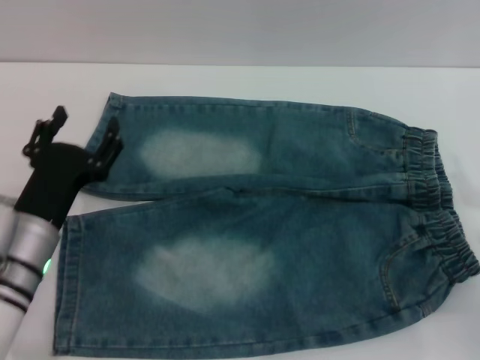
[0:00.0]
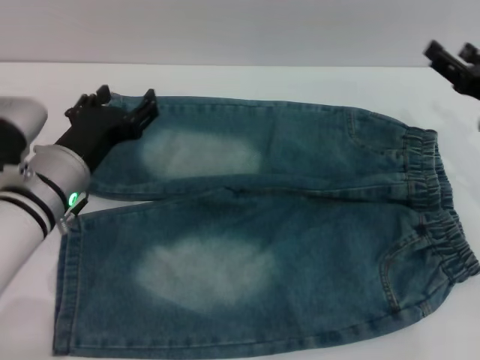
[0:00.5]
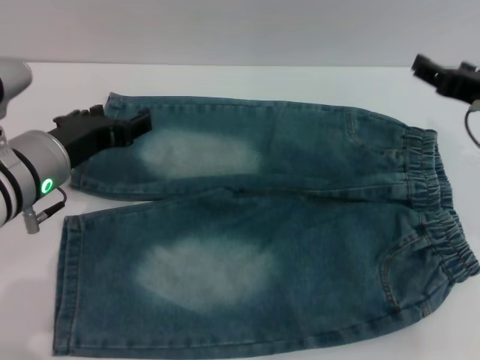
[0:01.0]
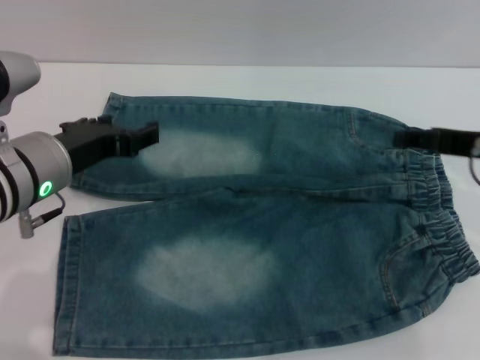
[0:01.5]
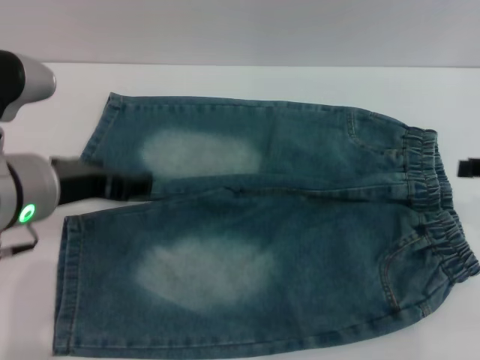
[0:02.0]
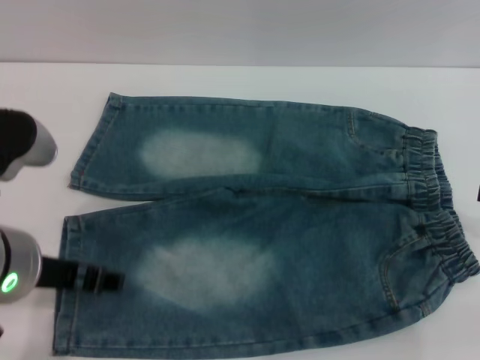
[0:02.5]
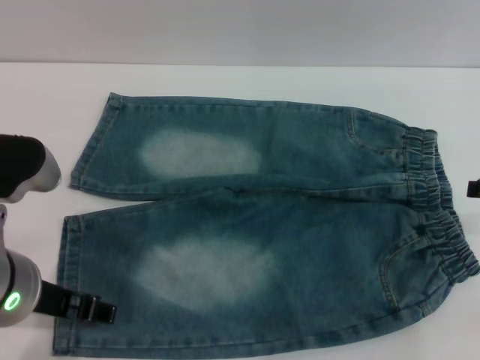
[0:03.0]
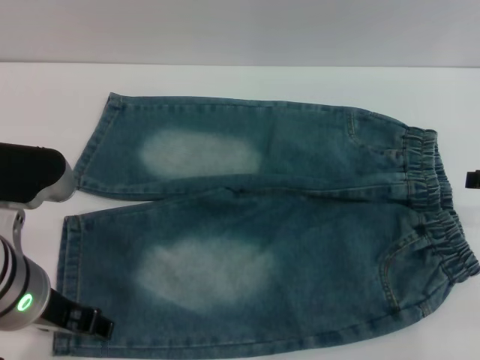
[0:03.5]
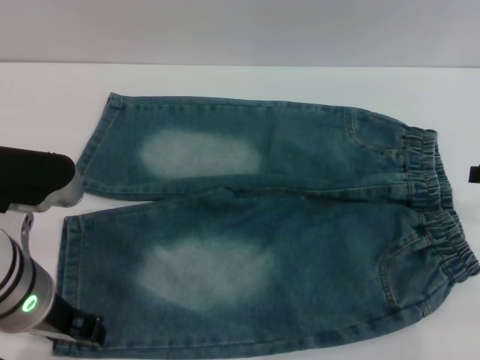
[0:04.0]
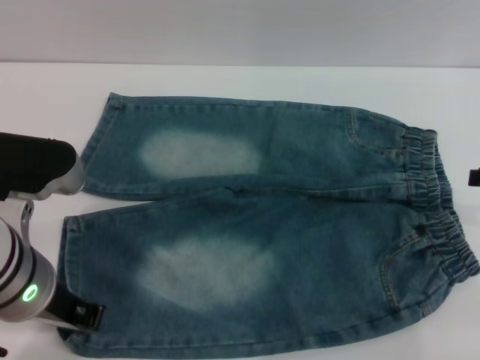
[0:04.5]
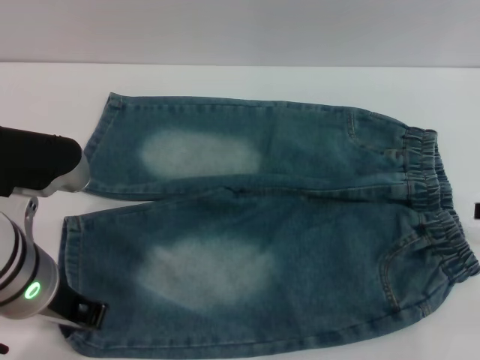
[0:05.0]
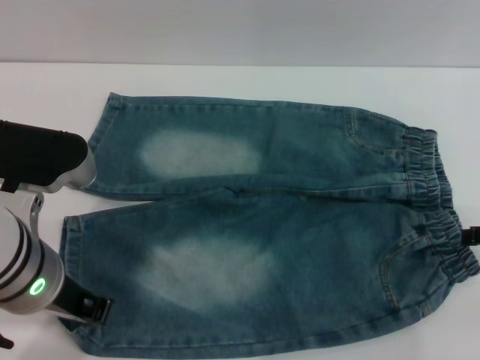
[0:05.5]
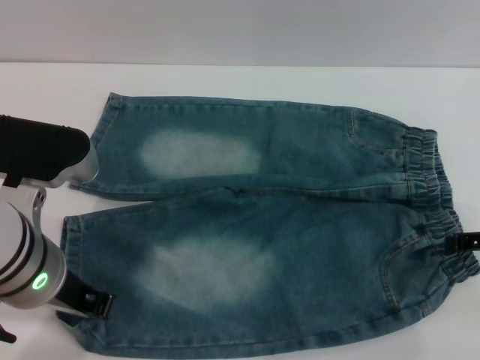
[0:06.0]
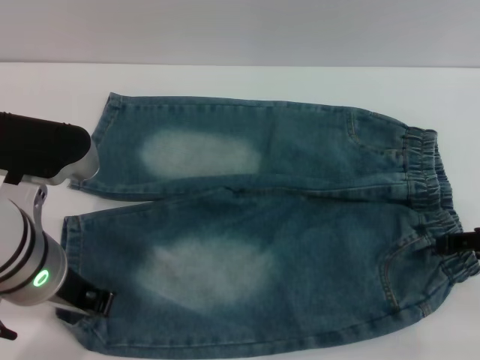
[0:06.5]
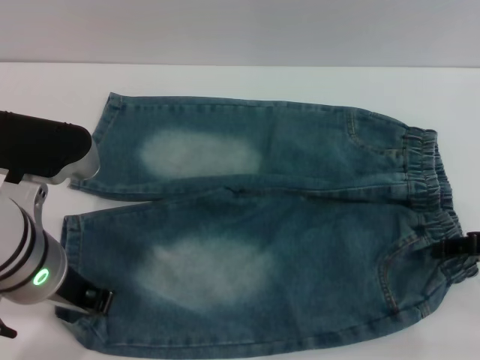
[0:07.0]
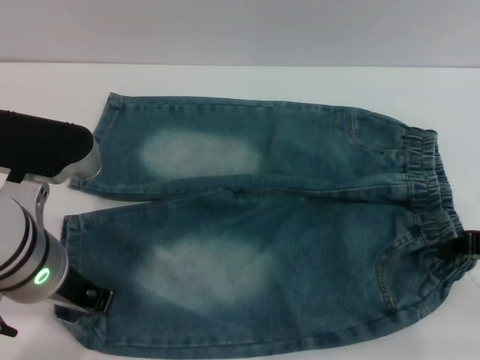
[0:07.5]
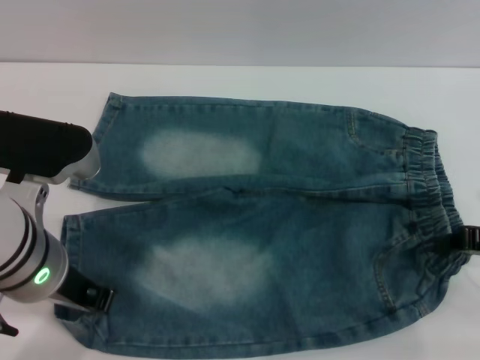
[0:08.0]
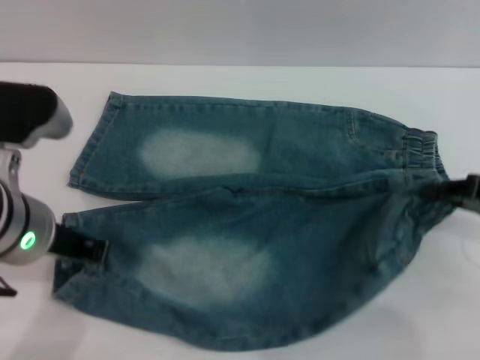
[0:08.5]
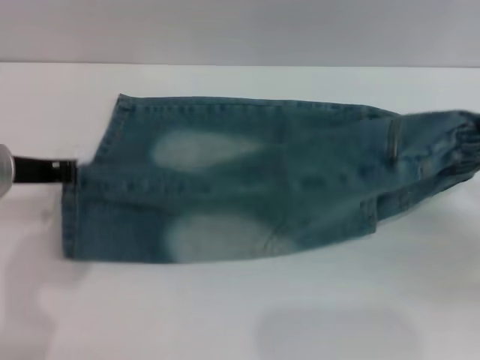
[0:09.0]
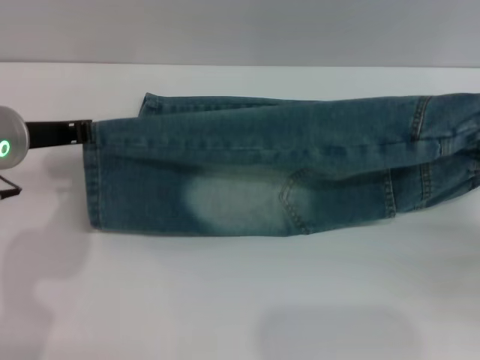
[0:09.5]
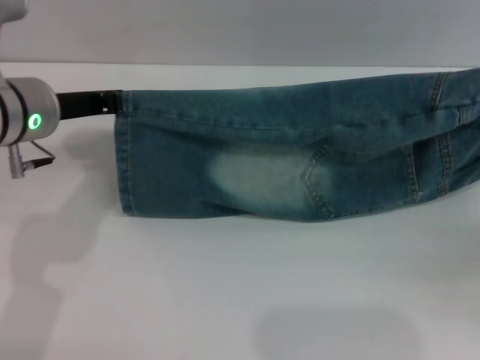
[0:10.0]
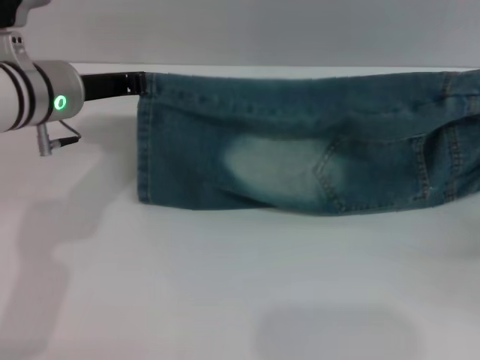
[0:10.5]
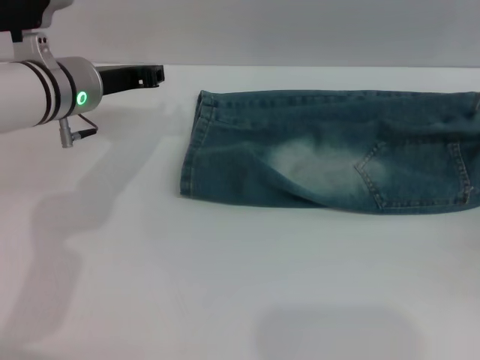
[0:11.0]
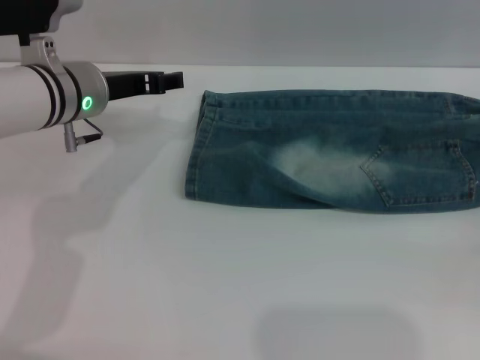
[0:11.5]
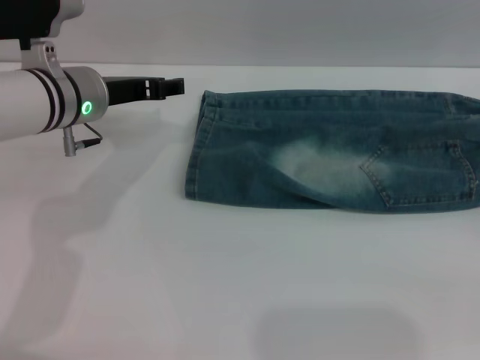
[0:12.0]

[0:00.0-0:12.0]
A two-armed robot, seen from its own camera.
Step, 0:00.0 to 0:11.5: Fold the bottom of the pants upward with both grippers.
0:00.0 to 0:02.0: Both grippers move upward, some 15 cm.
0:04.0 to 0:06.0: The left gripper closes up.
0:06.0 to 0:08.0: The right gripper closes.
0:08.0 to 0:10.0: The right gripper shifts roughly 5 cm to the right; the left gripper goes some 10 cm forward.
0:10.0 to 0:12.0: The right gripper moves to the right, approximately 5 cm, and opens up. Meanwhile the left gripper goes about 5 cm forward, and opens.

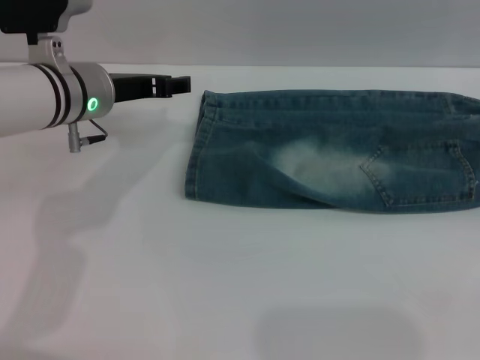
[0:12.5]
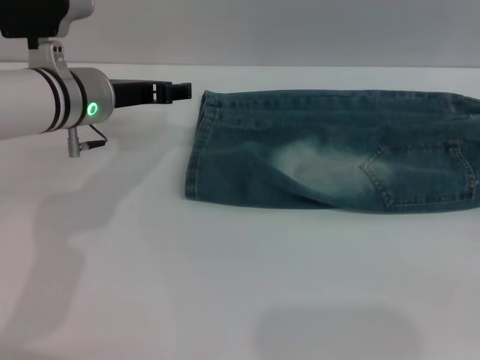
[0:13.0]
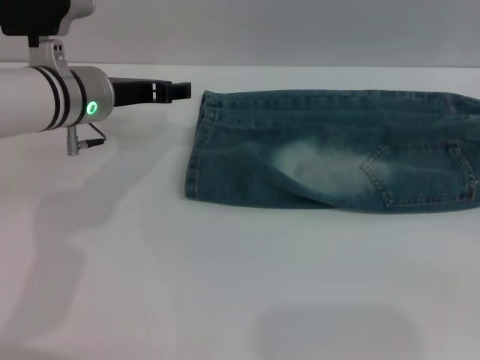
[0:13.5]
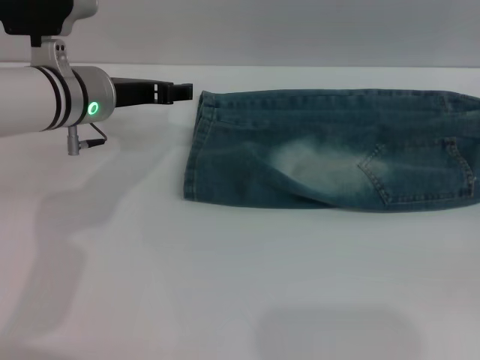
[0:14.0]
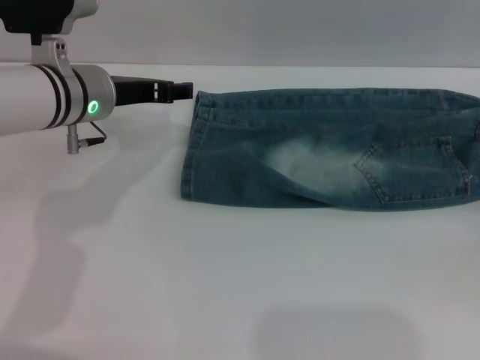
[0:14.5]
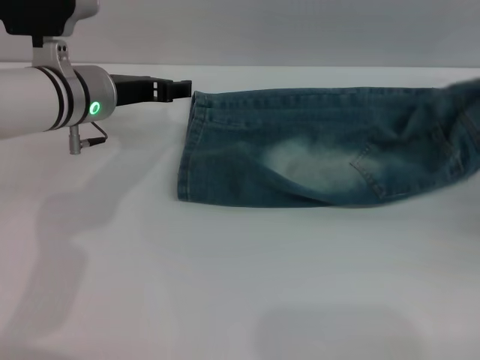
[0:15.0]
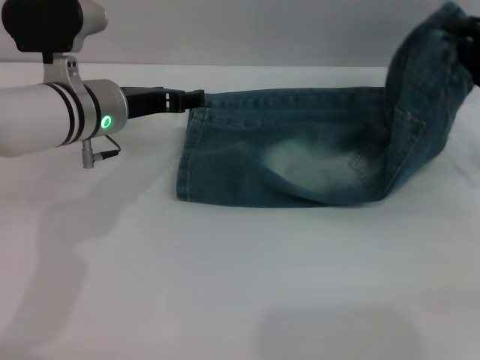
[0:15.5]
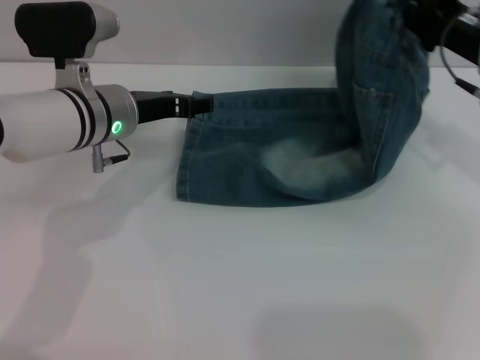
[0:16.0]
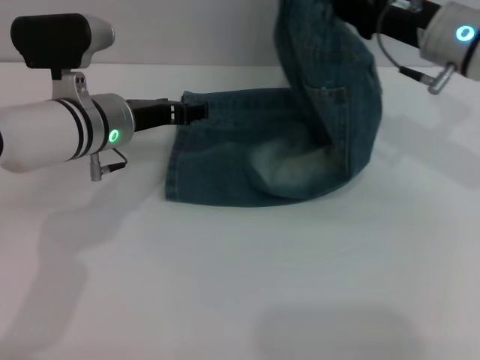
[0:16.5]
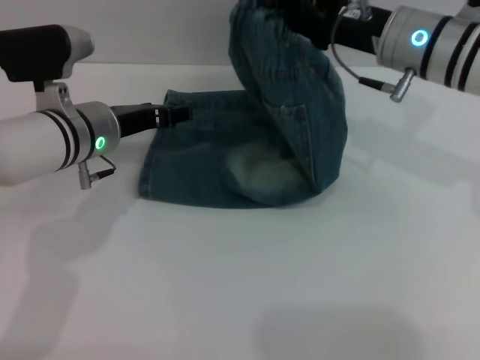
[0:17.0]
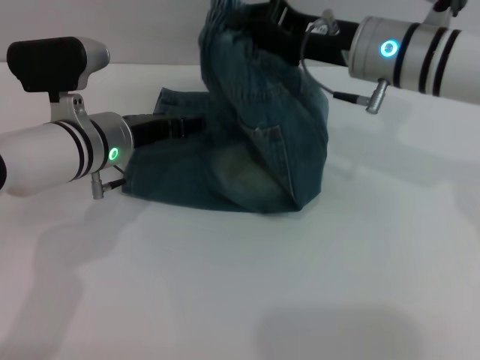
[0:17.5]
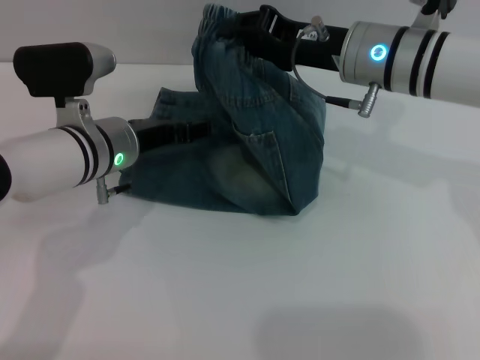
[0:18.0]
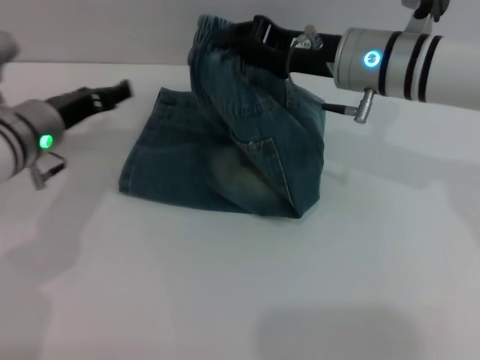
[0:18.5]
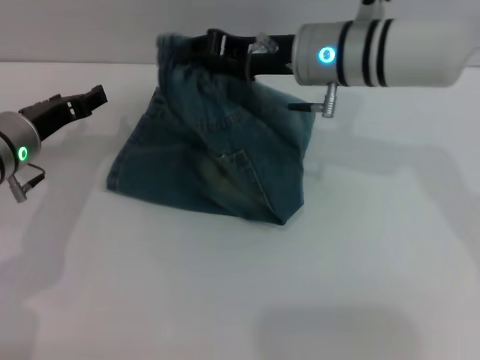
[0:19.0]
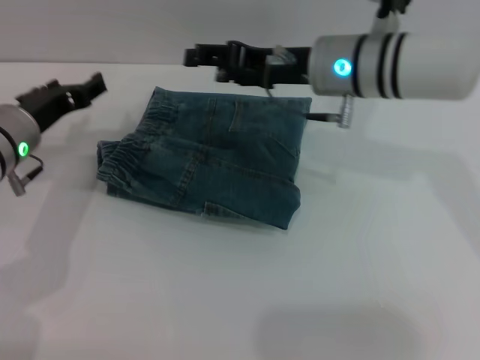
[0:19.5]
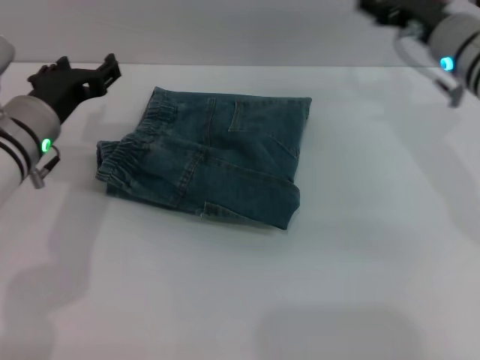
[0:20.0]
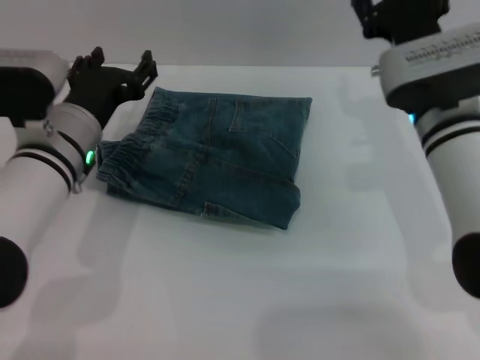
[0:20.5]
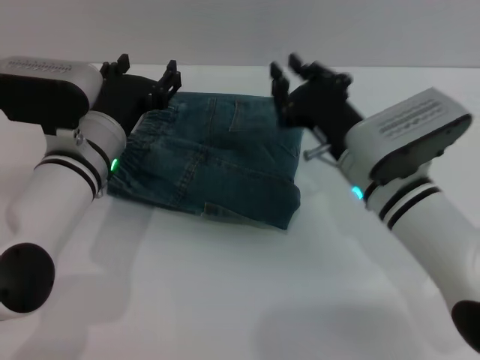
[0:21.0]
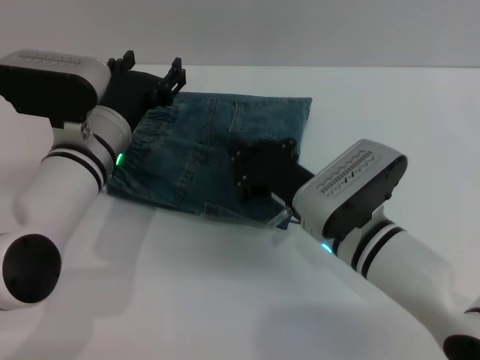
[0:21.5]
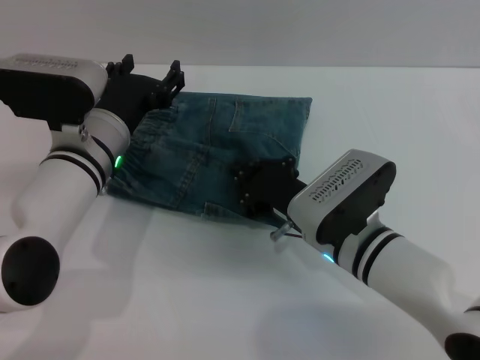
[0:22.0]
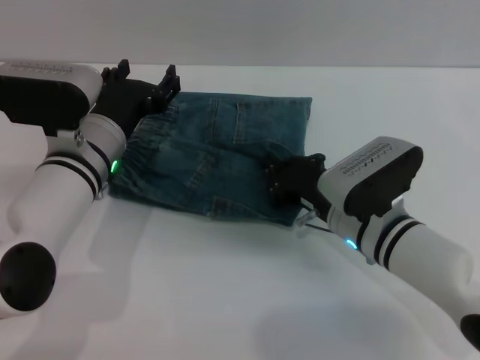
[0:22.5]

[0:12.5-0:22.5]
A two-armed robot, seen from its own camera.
Step, 0:12.5 to 0:19.0: Fold the pants from right to left with the right gripper.
0:12.5 to 0:14.5: The right gripper is displaced forward by approximately 5 cm, and closes.
0:14.5 to 0:16.5: The right gripper travels to the left, forward and upward by some 25 cm.
0:16.5 to 0:18.5: Both grippers move to the left, approximately 5 cm.
0:18.5 to 0:20.5: The left gripper shifts roughly 5 cm to the right. The right gripper moves left and right over some 10 cm, changing direction 2 times, and opens.
0:20.5 to 0:22.5: The right gripper travels downward and backward by some 10 cm, and closes up.

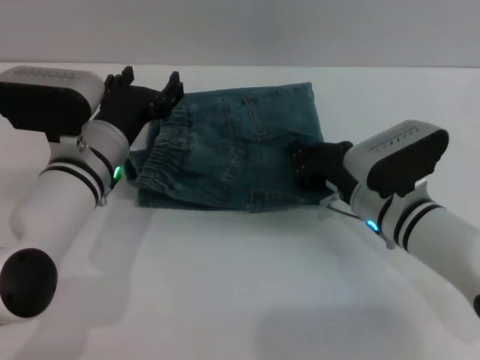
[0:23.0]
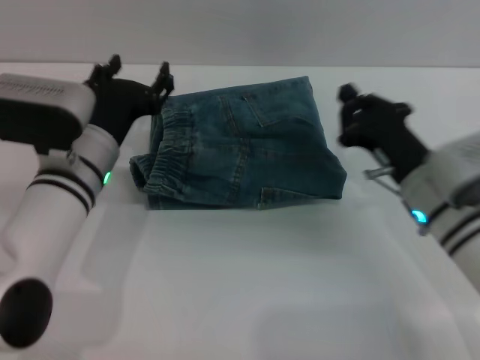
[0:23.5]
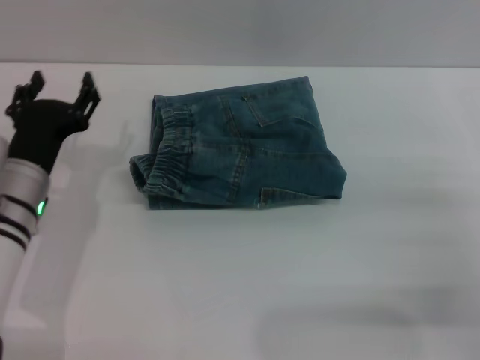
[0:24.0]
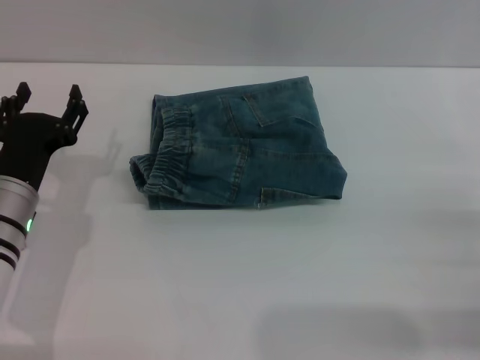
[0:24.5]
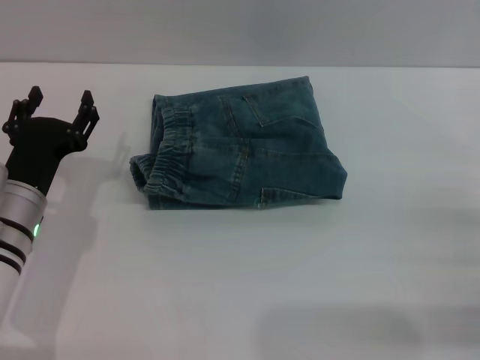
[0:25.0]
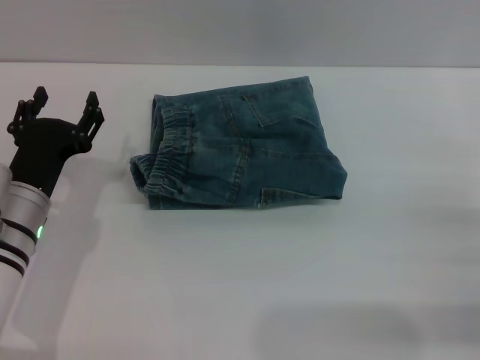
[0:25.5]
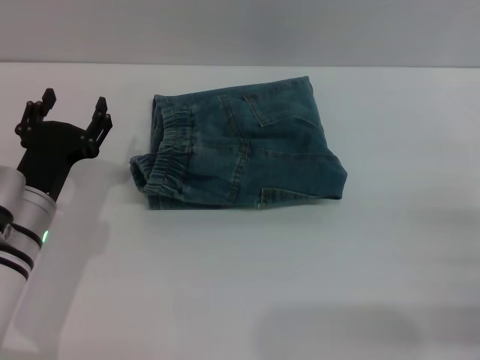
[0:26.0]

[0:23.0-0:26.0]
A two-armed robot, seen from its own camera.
0:23.0 to 0:24.5: The right gripper travels to the right and backward by roughly 20 cm, and opens, while the left gripper travels to the left and backward by approximately 10 cm.
0:24.5 to 0:26.0: The grippers stay close to where they were, moving slightly.
